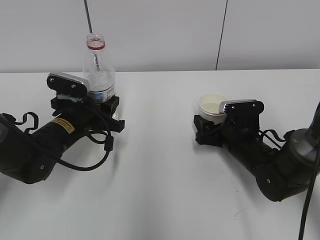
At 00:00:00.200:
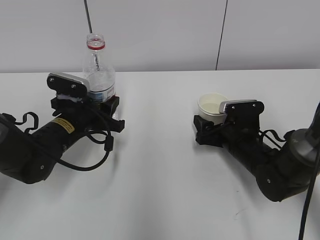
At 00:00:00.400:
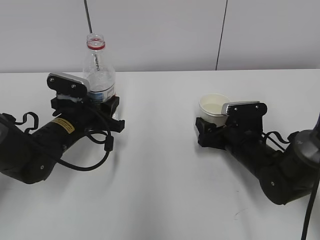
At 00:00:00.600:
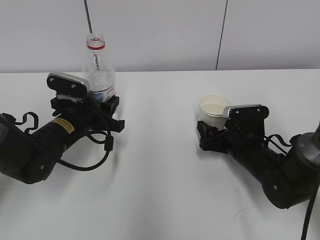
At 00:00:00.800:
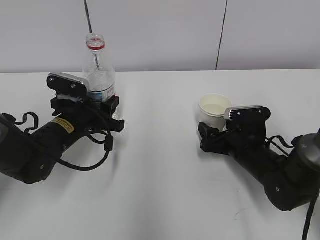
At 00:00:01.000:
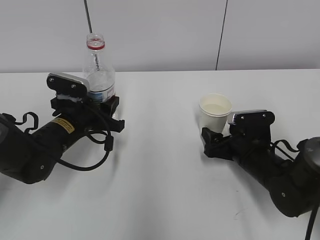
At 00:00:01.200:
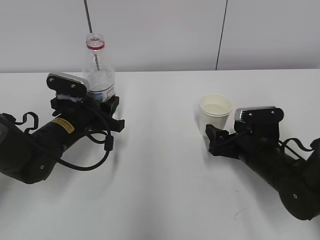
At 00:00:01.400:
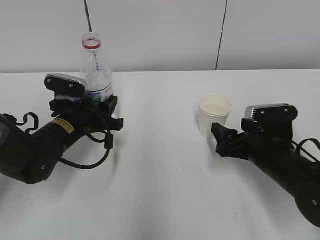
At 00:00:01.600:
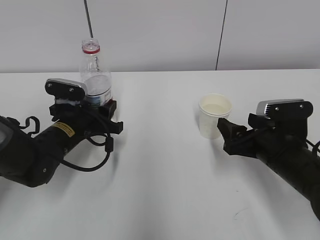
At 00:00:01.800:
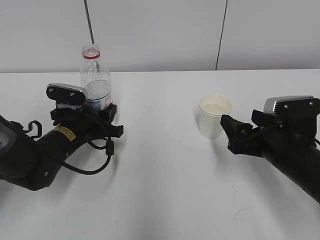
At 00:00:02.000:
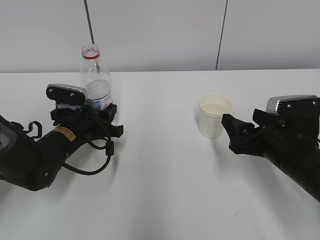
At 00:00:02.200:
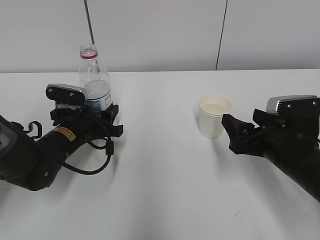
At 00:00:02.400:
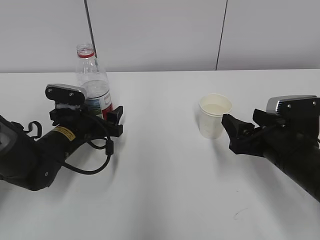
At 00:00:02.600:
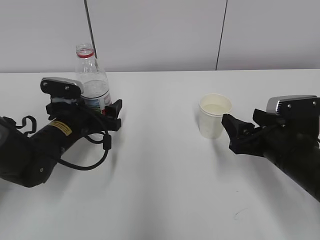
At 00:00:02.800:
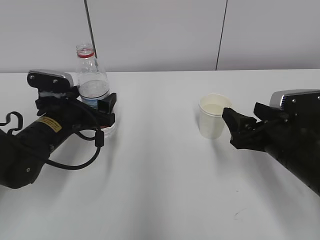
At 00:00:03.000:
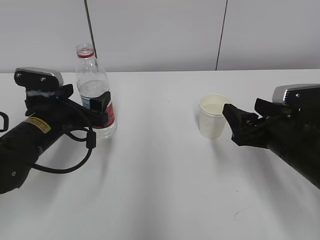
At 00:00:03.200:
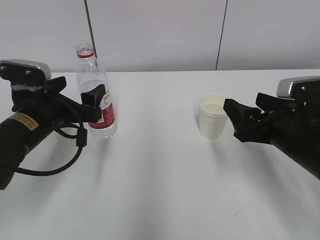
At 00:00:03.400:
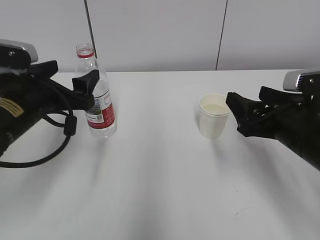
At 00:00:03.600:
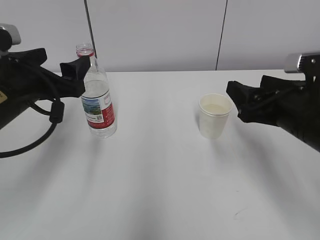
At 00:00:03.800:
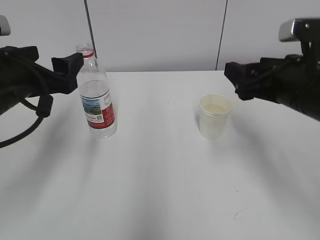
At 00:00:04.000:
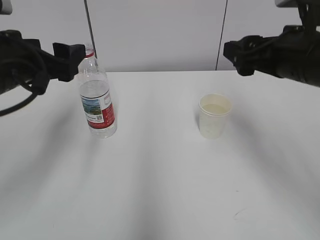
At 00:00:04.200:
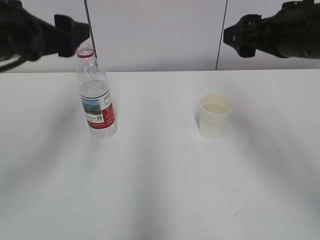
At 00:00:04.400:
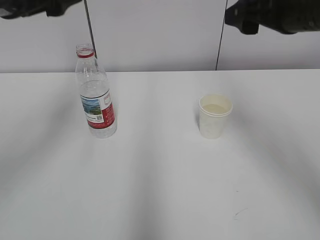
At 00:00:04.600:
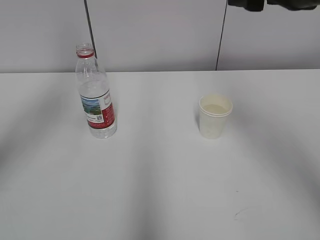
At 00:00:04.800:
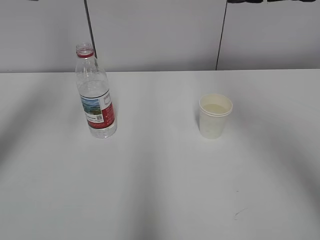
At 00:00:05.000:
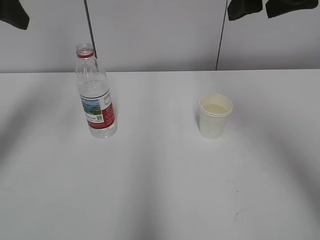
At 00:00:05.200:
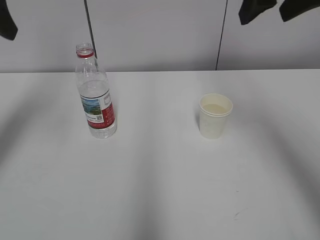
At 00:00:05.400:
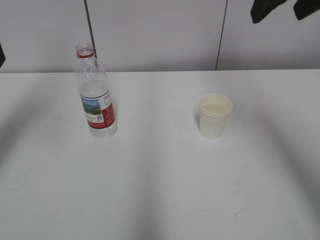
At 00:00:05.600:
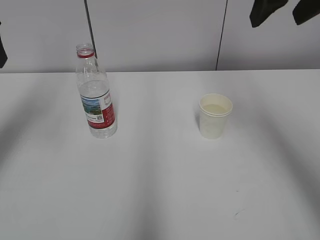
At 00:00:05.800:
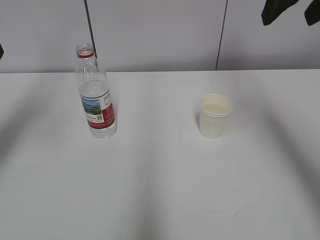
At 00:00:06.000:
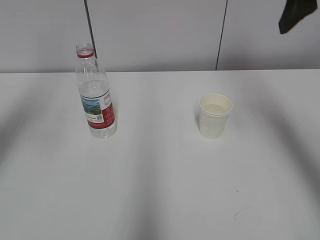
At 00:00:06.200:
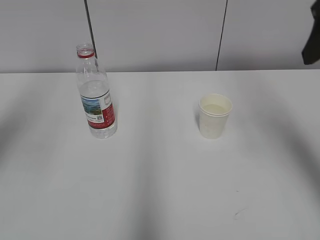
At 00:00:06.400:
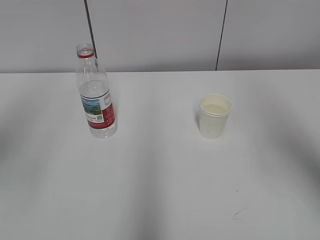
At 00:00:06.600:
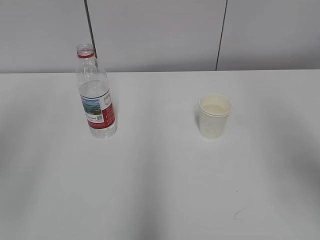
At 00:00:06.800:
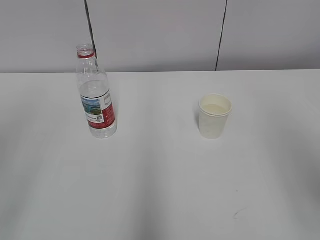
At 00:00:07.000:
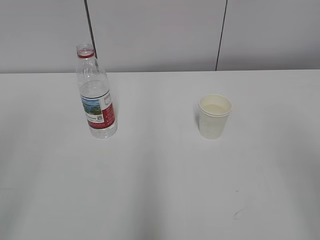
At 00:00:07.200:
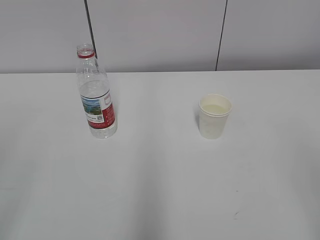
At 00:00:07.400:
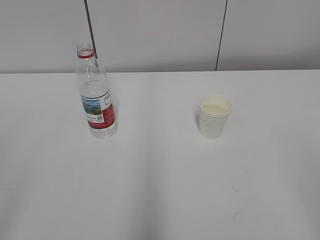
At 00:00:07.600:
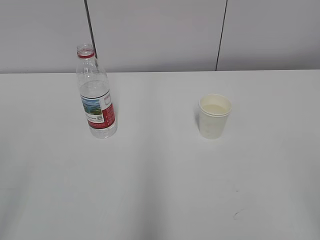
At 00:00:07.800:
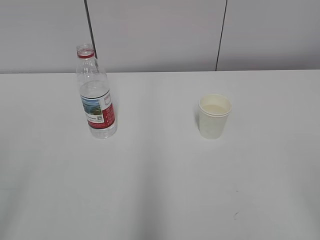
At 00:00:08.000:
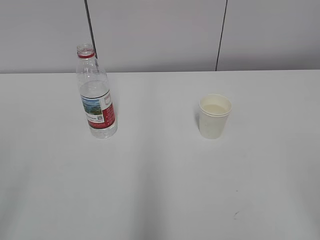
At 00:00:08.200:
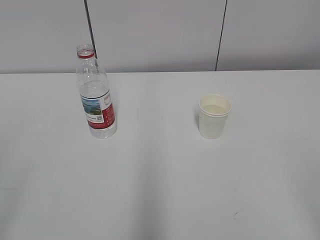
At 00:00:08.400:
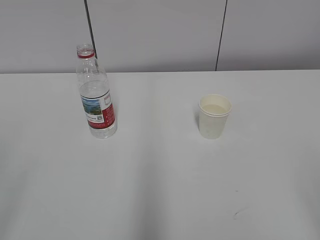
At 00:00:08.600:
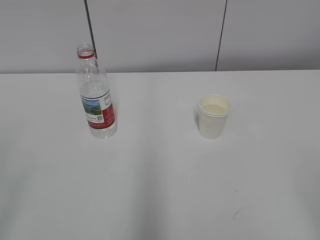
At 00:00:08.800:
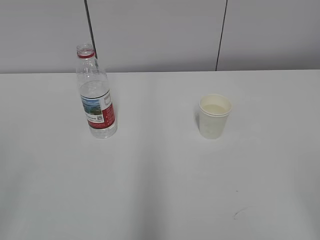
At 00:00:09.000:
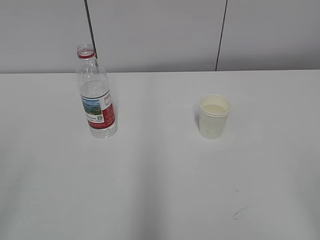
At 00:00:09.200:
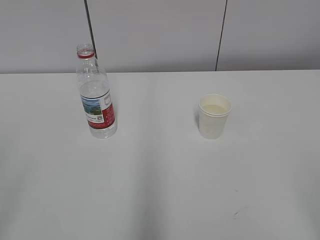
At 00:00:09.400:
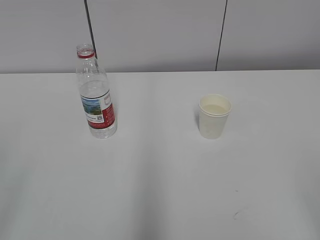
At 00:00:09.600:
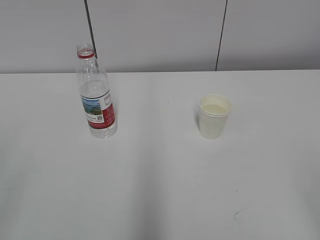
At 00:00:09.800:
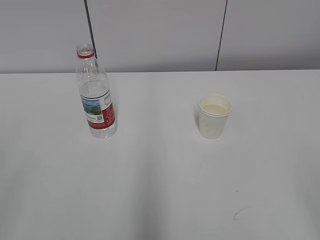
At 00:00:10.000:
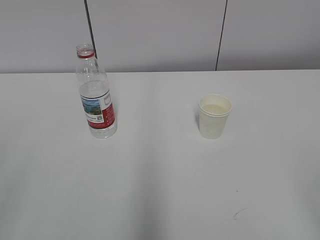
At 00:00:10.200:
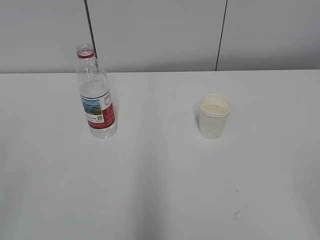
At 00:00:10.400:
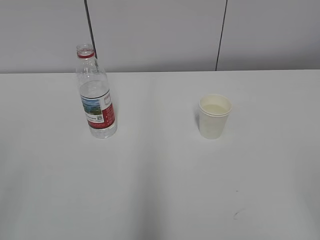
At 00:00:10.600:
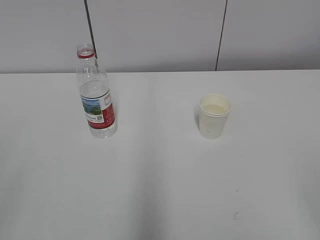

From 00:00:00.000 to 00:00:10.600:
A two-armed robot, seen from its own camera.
From 00:00:00.000 to 00:00:01.600: The right gripper heads backward and upward, covering some 10 cm.
From 00:00:01.600 to 00:00:03.000: The left gripper changes place by about 5 cm, and opens its fingers.
From 00:00:03.000 to 00:00:04.600: The two grippers go approximately 25 cm upward.
From 00:00:04.600 to 00:00:06.000: The left gripper goes about 5 cm to the left; the right gripper shifts by about 5 cm.
From 00:00:06.000 to 00:00:07.600: The right gripper shifts some 35 cm backward and downward. Meanwhile the left gripper is displaced backward by some 30 cm.

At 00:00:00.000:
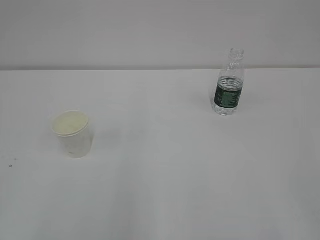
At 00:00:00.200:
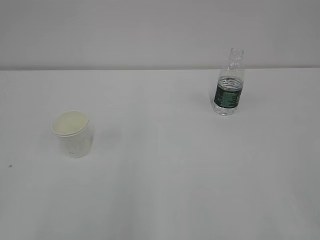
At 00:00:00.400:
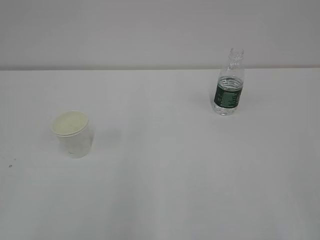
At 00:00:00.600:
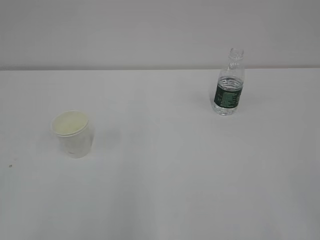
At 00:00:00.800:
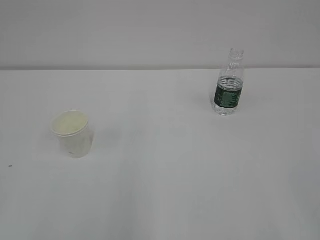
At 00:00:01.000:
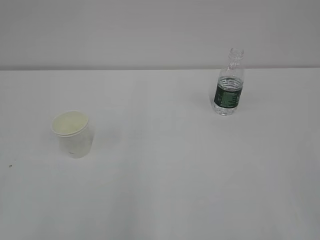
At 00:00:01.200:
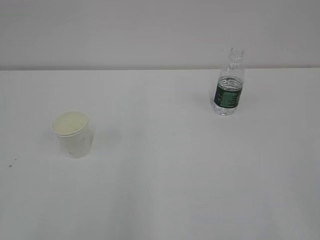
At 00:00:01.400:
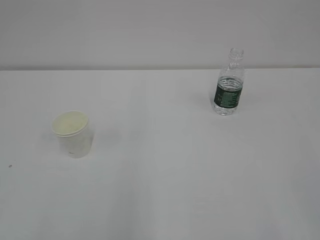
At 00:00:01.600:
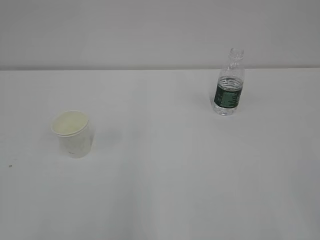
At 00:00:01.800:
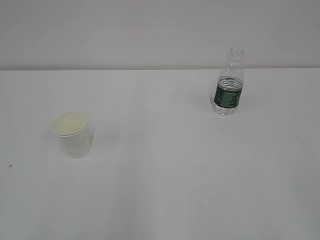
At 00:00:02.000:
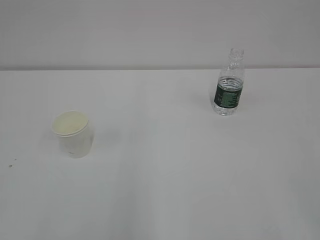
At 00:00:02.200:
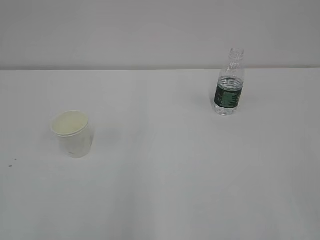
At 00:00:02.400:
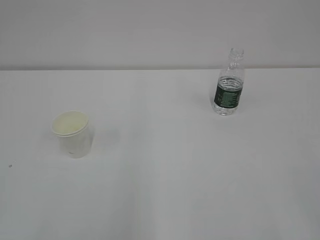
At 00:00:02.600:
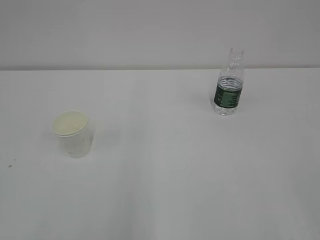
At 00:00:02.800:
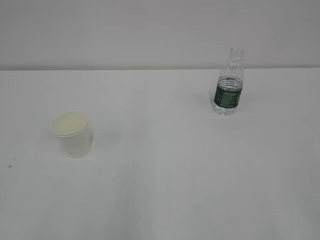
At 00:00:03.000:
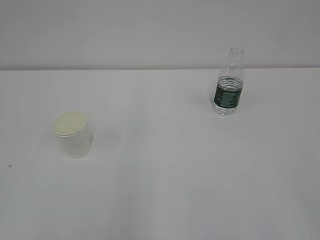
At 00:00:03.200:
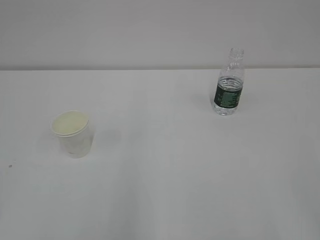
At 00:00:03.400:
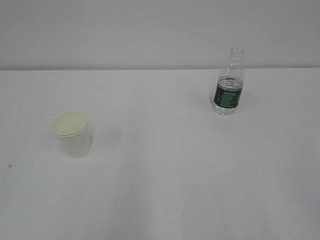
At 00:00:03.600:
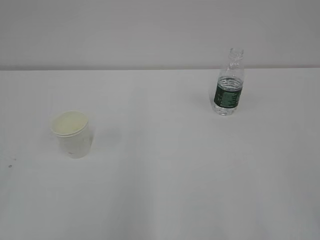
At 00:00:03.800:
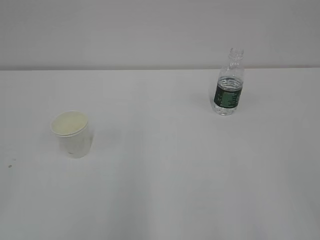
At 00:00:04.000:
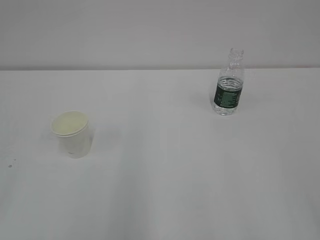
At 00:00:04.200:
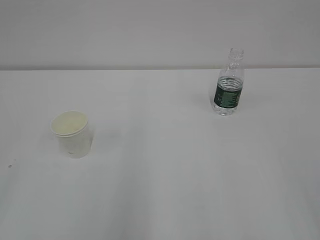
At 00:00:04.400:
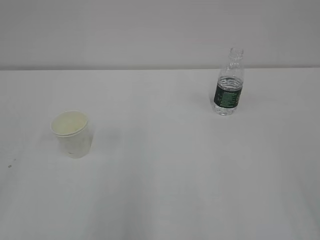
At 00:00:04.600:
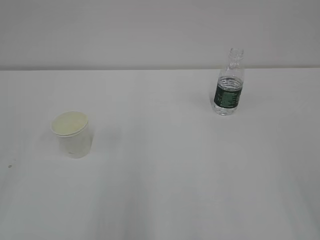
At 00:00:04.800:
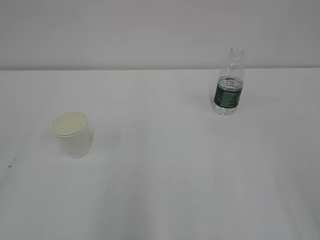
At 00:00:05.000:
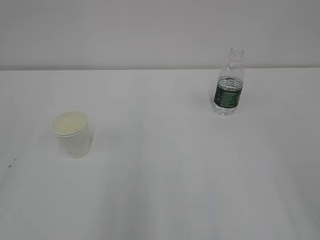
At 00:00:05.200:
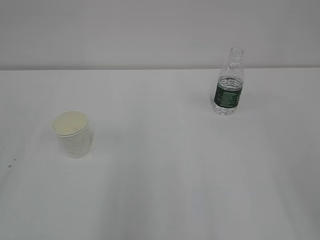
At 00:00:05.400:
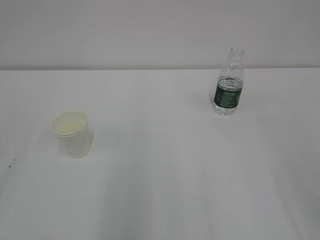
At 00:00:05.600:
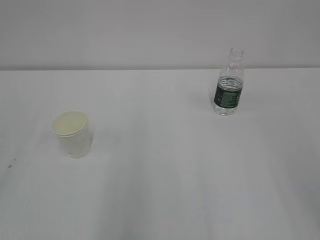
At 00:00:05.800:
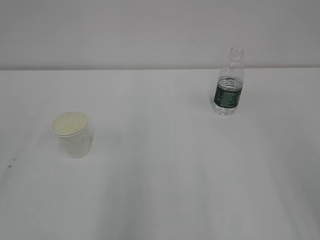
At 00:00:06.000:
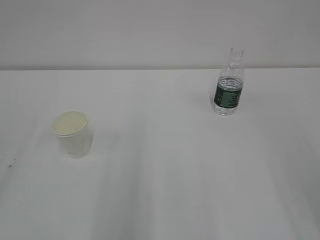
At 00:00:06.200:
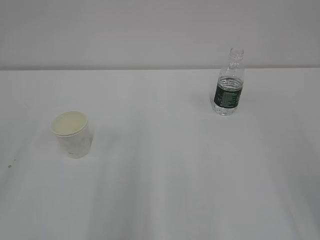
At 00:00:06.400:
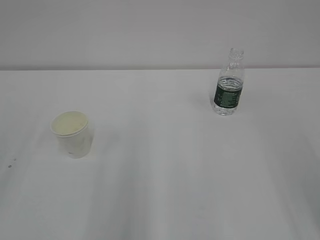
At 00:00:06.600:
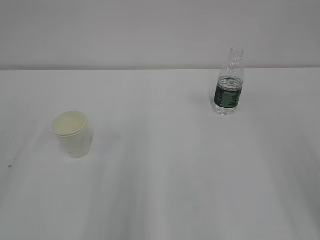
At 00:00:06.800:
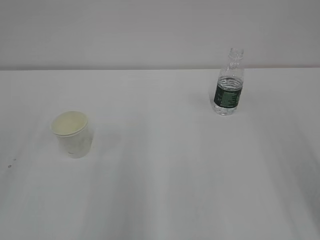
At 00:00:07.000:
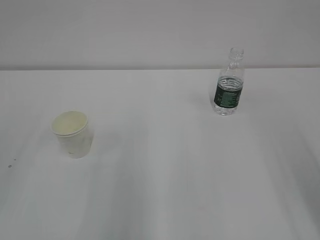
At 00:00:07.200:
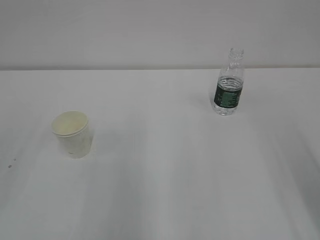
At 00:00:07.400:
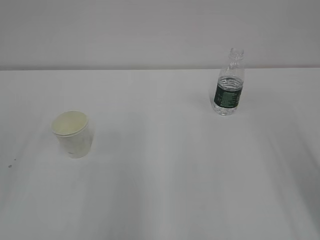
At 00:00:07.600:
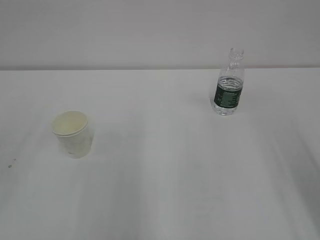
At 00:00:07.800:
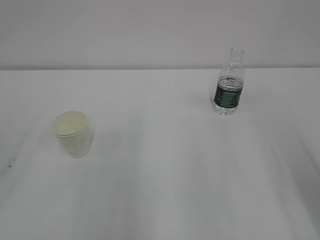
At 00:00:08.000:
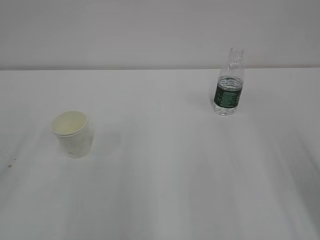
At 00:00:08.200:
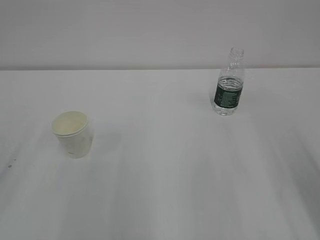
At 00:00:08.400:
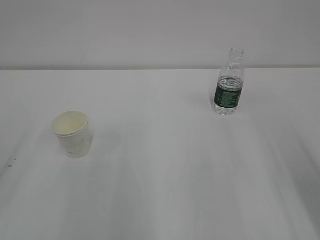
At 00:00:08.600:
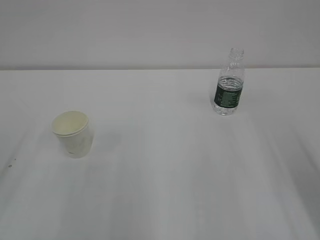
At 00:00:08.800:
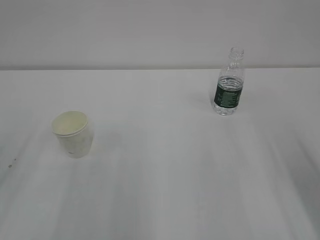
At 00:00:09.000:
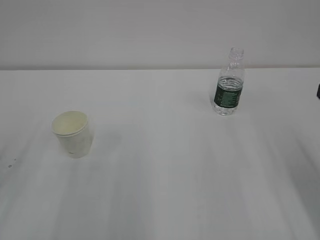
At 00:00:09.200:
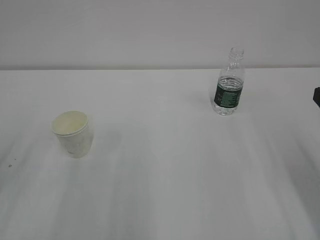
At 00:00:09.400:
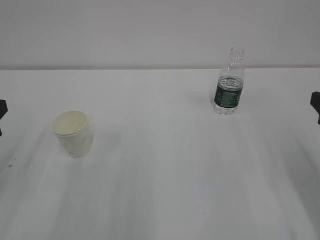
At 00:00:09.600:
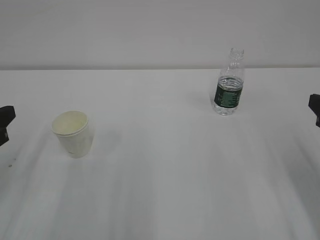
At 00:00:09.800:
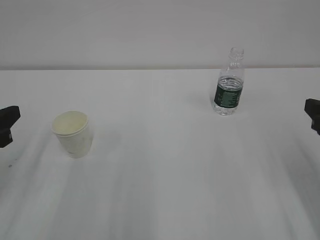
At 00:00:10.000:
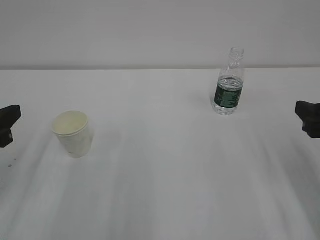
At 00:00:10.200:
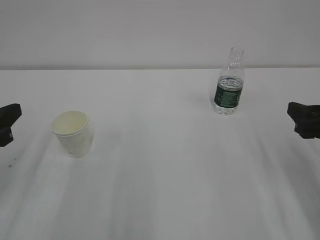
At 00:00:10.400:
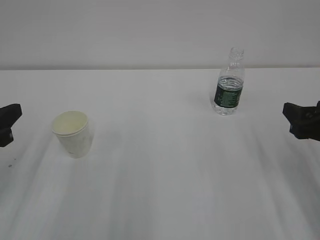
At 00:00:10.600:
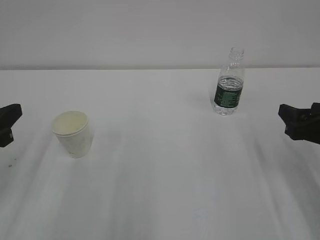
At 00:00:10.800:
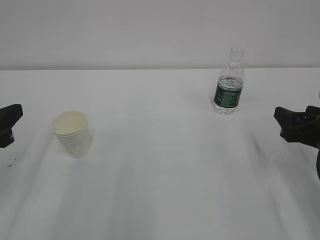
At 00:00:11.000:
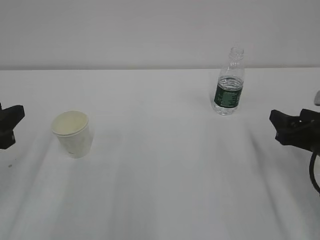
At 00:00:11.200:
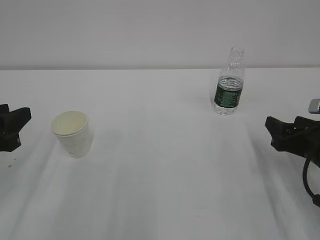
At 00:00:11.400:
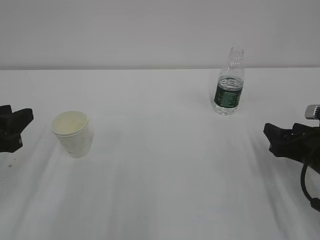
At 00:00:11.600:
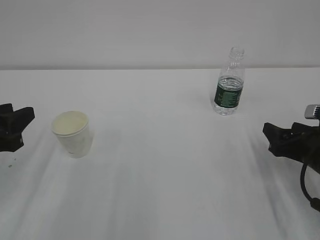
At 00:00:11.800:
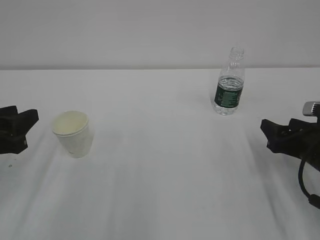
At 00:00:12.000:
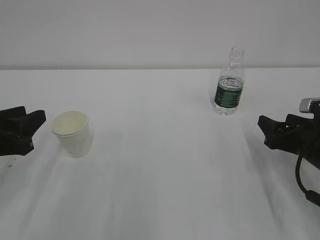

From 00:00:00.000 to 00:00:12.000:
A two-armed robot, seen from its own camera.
From 00:00:01.600 to 00:00:03.000: Both grippers stay put.
From 00:00:09.000 to 00:00:10.400: The right gripper shifts approximately 5 cm downward.
From 00:00:10.400 to 00:00:12.000: The right gripper goes approximately 5 cm downward.
